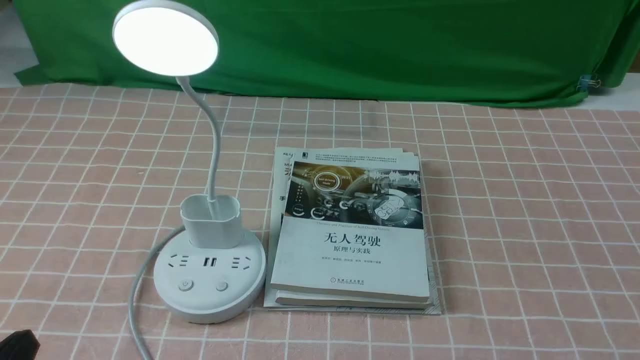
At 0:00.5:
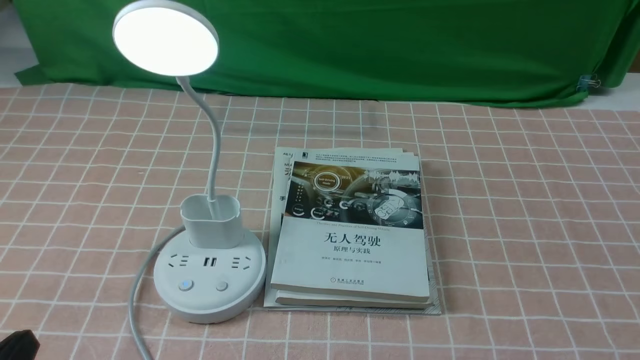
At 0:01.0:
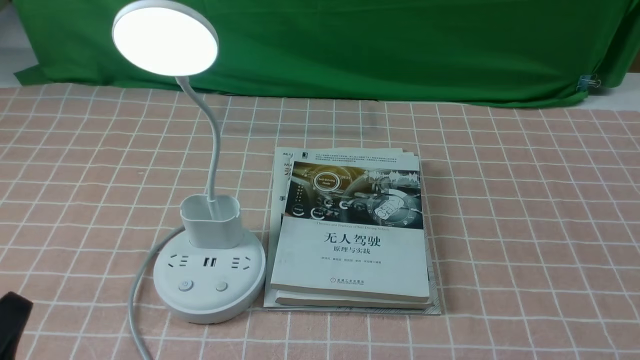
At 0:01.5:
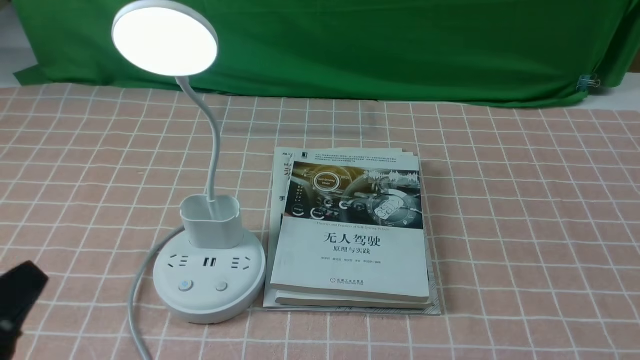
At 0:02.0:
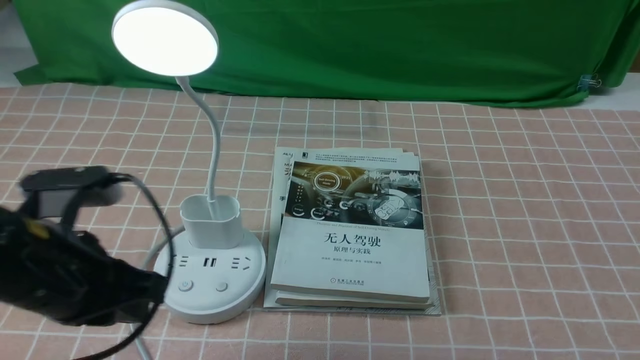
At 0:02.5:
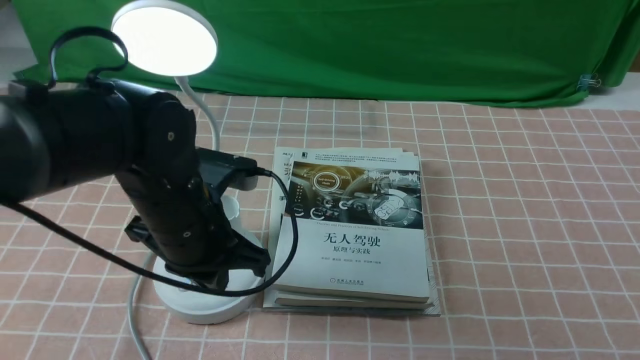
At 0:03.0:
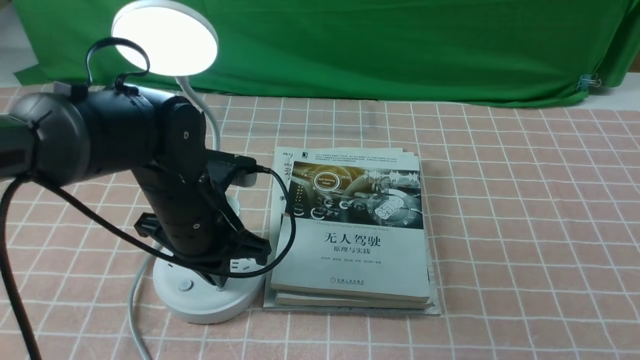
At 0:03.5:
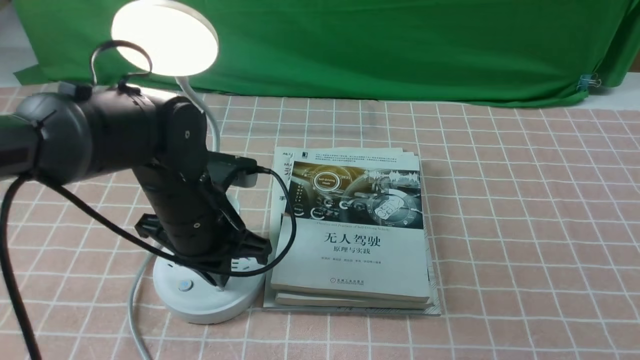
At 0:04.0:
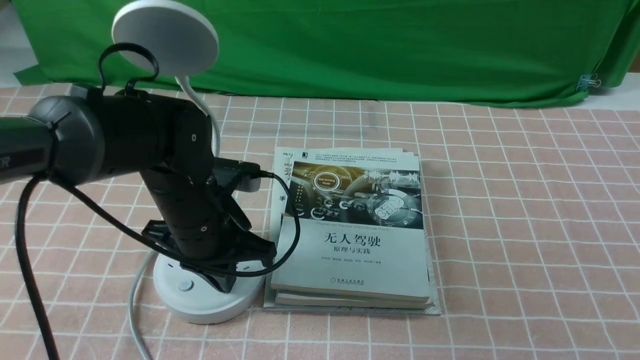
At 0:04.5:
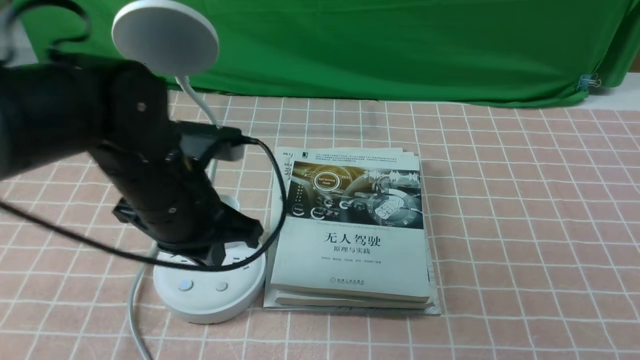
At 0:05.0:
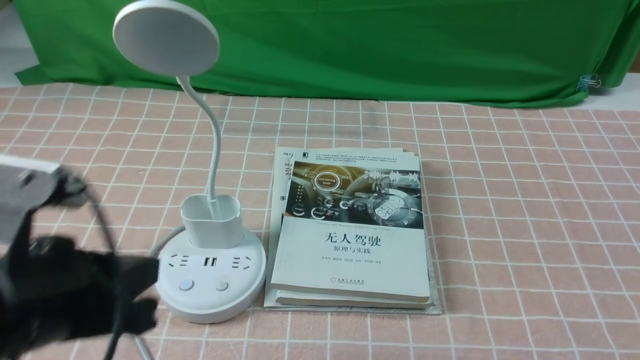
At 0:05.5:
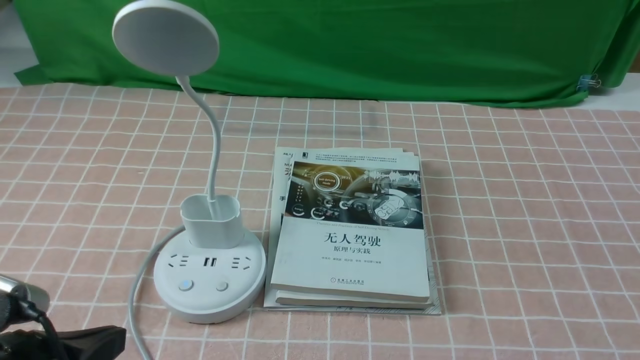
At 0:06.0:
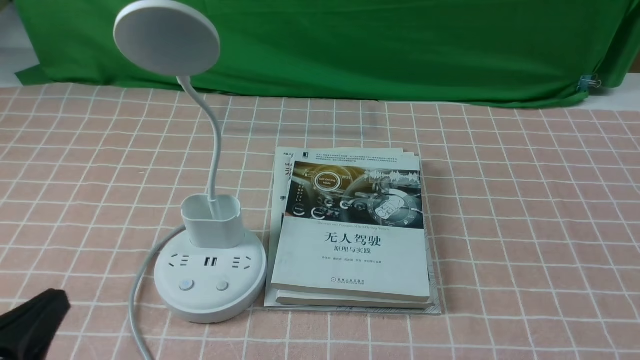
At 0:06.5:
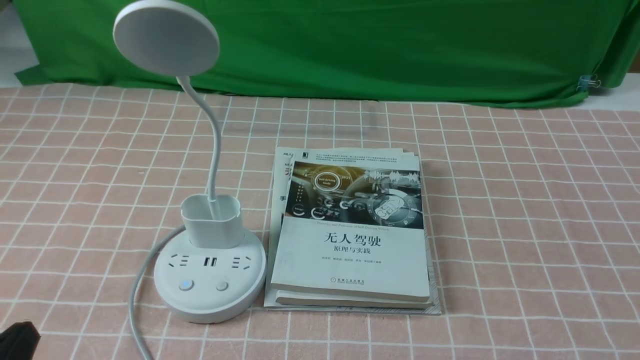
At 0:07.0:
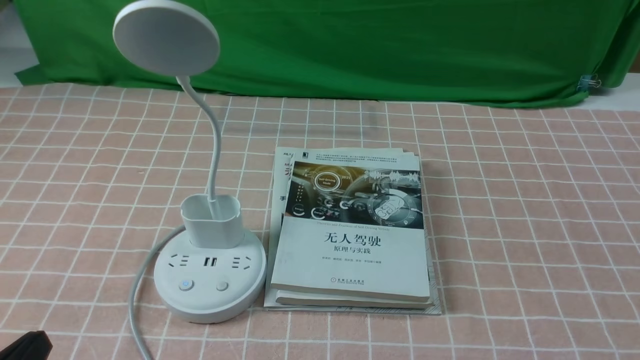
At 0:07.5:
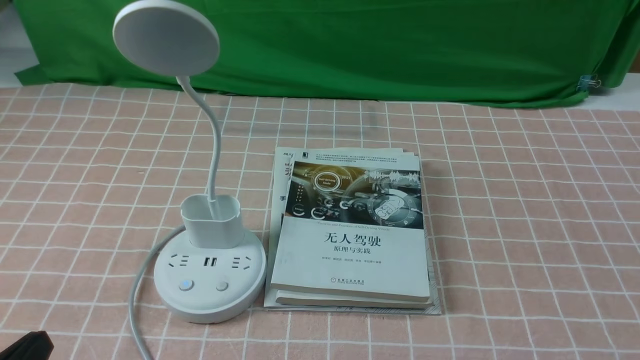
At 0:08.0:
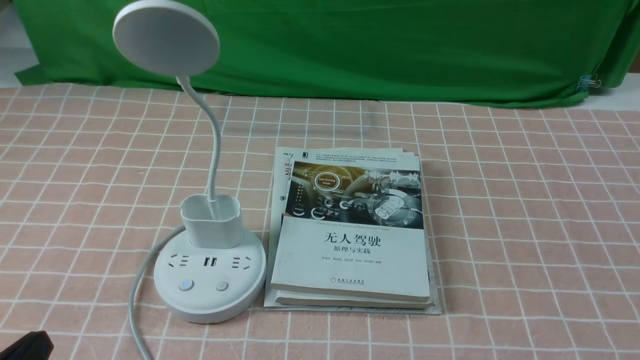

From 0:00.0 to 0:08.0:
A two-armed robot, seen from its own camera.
Task of the whole recording: turn off the table lamp on the pink coffee tablecloth by hand.
Step, from 0:00.0 to 0:04.0: use the left arm to press the button switch on the lamp holder.
From 0:02.0 to 0:04.0: The left gripper travels forward, to the right and downward by about 20 cm.
From 0:04.0 to 0:06.0: The left gripper moves backward and to the left, about 25 cm.
From 0:06.0 to 0:08.0: The grippers make only small movements.

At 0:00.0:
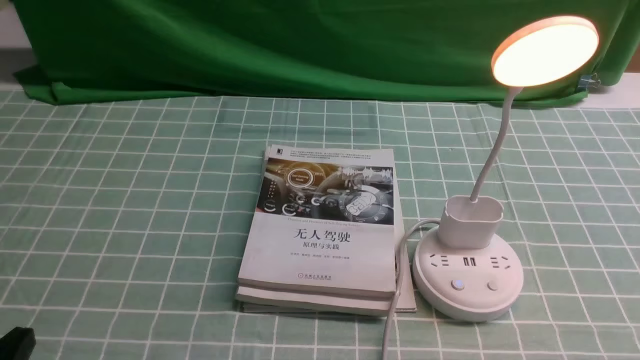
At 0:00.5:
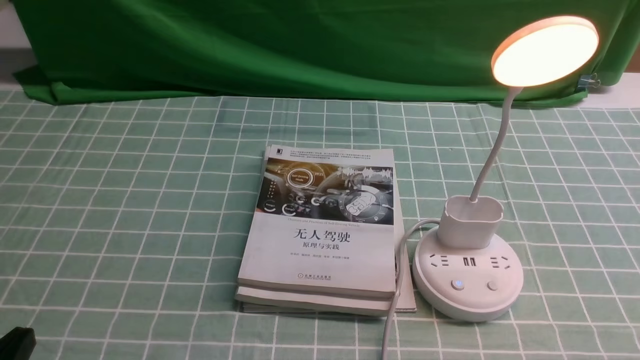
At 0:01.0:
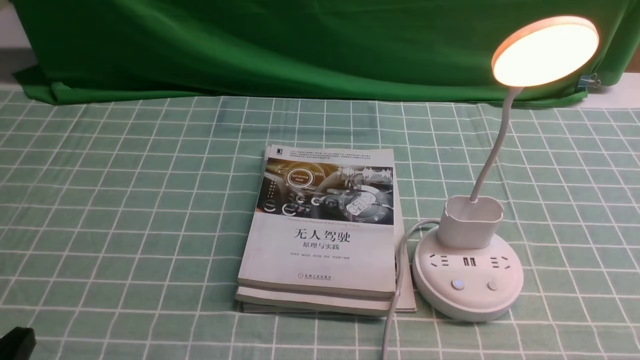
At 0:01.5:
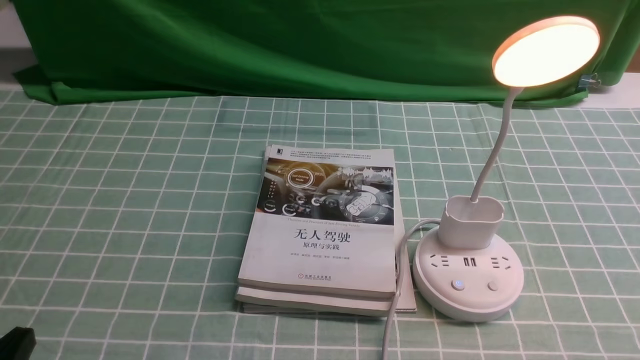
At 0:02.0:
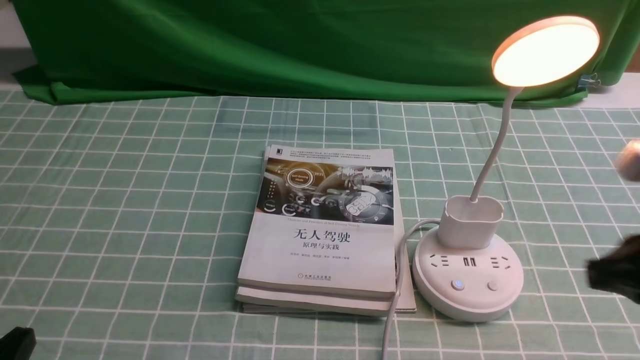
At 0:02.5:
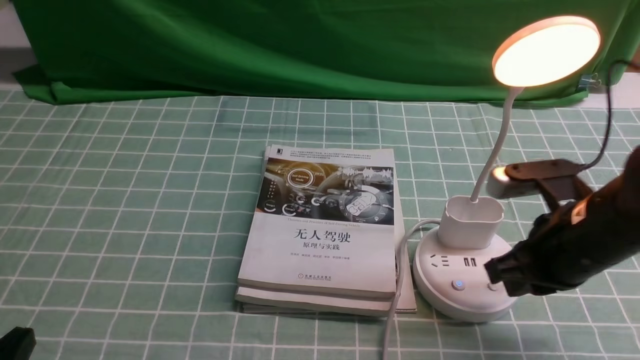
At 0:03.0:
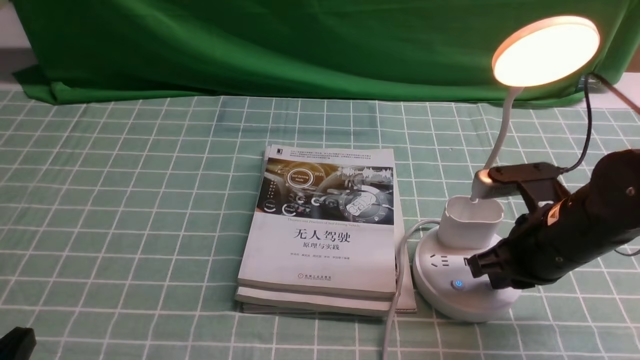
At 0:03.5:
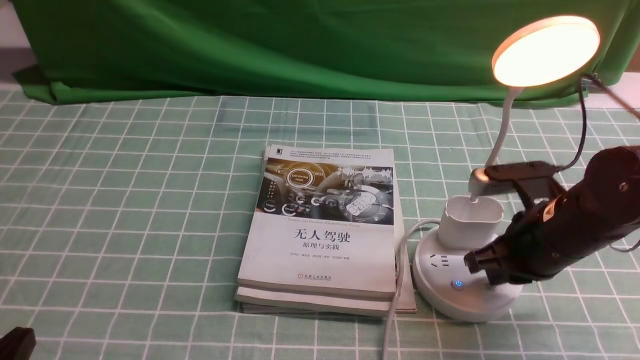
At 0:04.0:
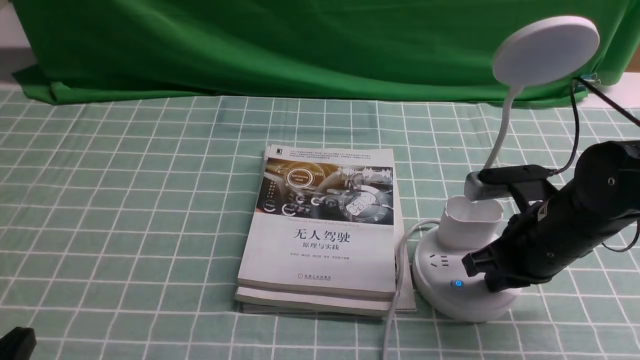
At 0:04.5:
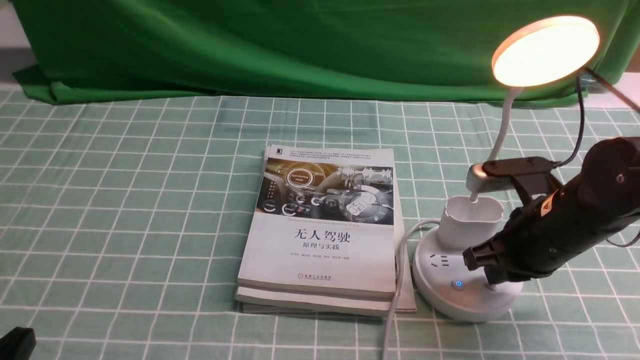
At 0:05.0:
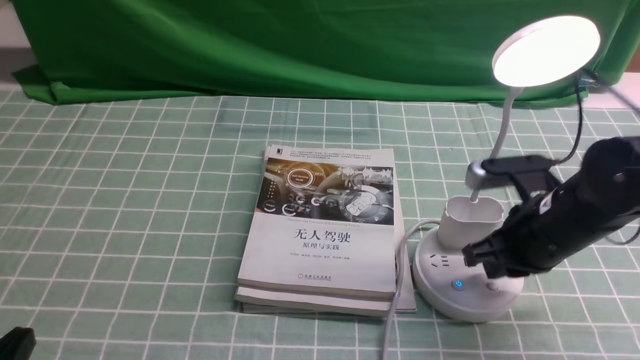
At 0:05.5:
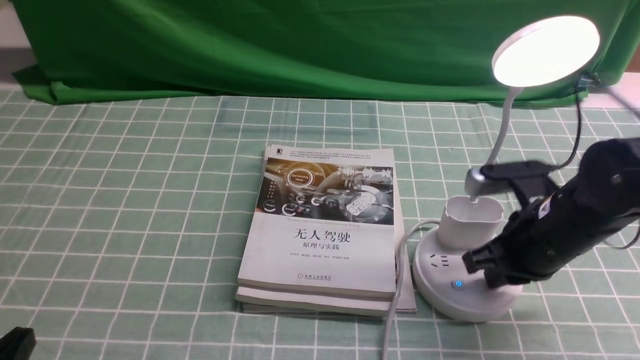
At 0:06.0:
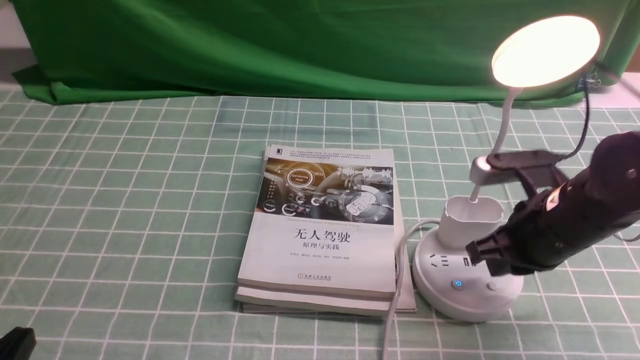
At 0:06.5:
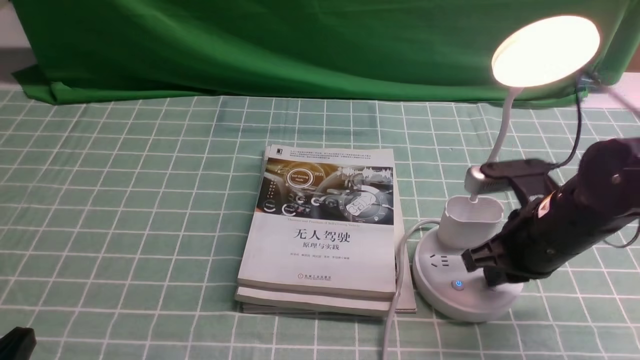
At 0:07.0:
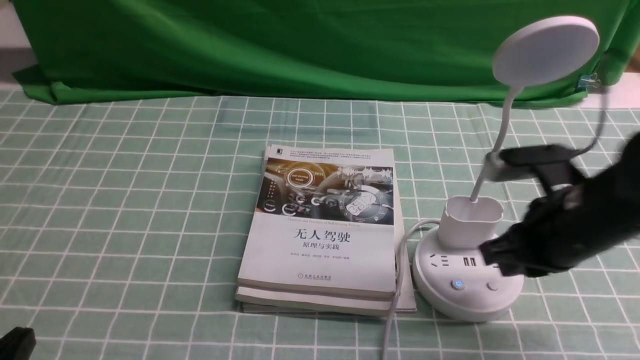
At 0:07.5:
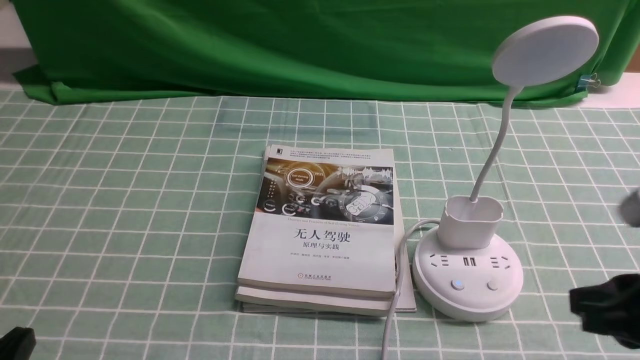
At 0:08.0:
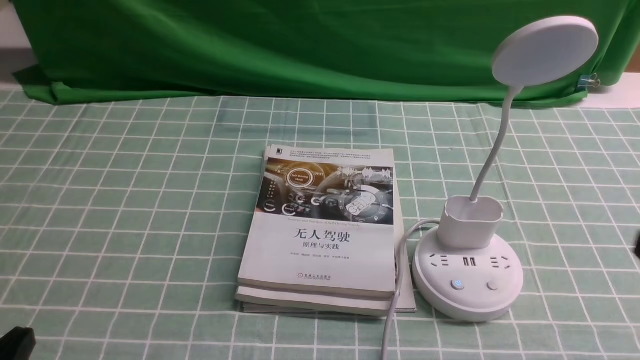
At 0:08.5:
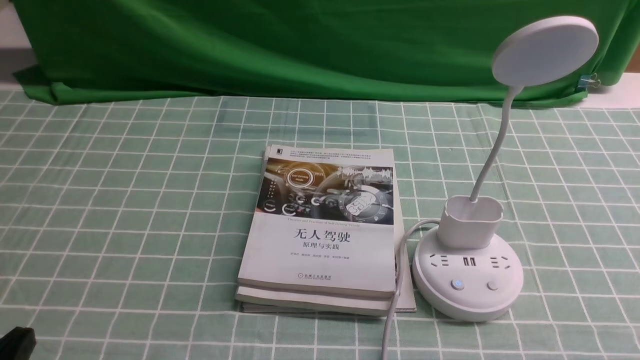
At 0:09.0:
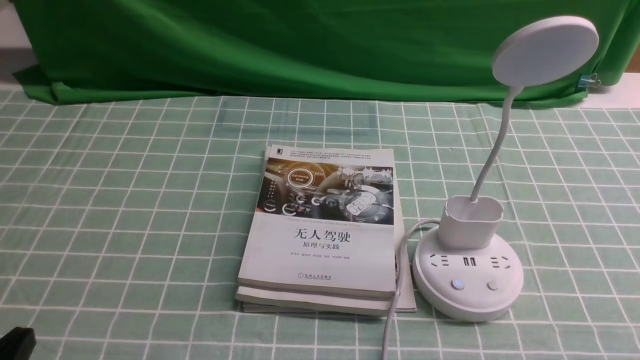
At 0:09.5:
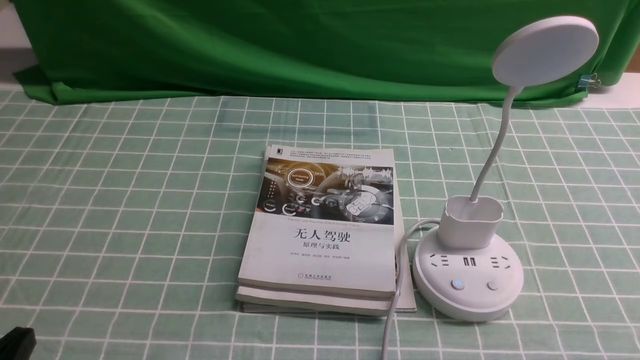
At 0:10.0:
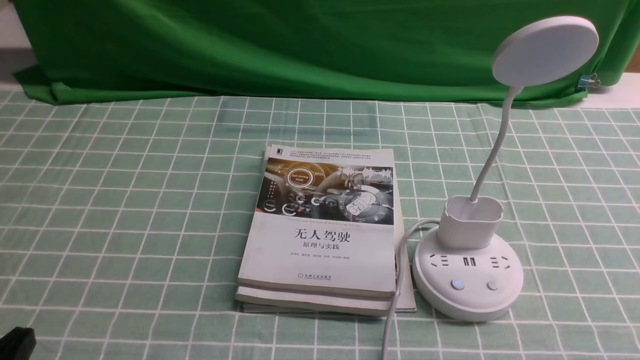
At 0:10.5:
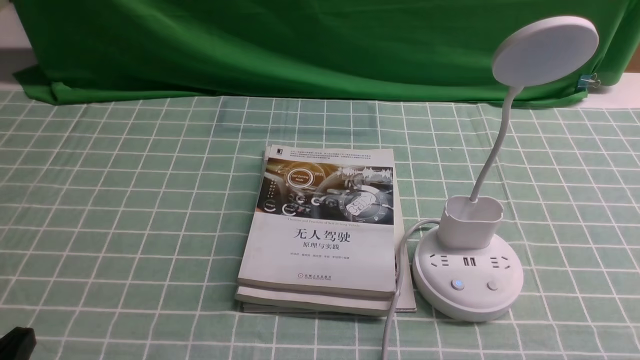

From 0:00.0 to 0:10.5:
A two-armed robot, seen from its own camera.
Task of the whole recording: turn off the desk lamp on the blue coffee tablecloth by hand.
Step, from 0:00.0 to 0:06.5: use the right arm to press the button switch on the lamp holder.
From 0:00.0 to 0:02.0: The right gripper moves forward and upward, approximately 15 cm, and closes its fingers.
From 0:02.0 to 0:04.0: The right gripper travels forward and downward by about 15 cm.
From 0:04.0 to 0:06.5: There are only small adjustments of the grippers.
From 0:06.5 to 0:08.5: The right gripper travels backward and to the right by some 25 cm.
